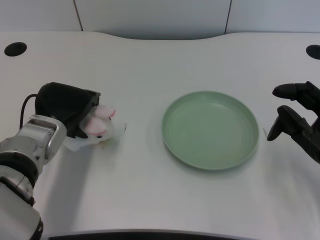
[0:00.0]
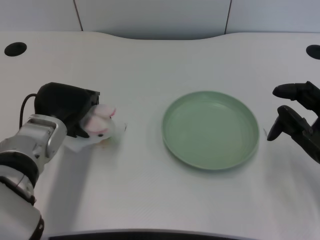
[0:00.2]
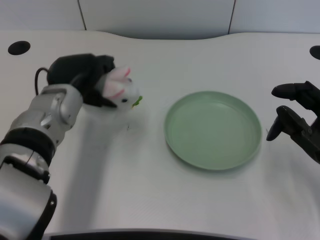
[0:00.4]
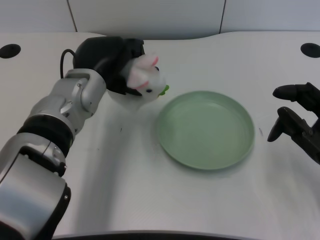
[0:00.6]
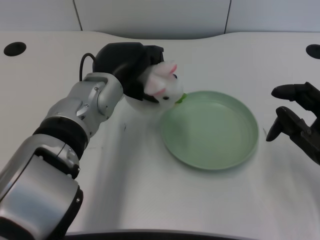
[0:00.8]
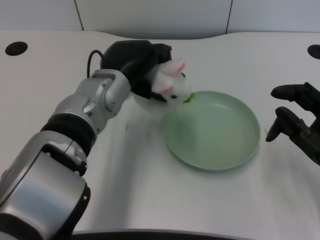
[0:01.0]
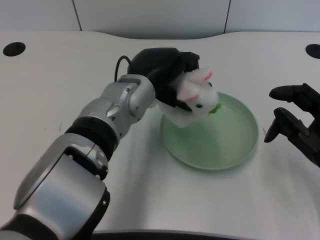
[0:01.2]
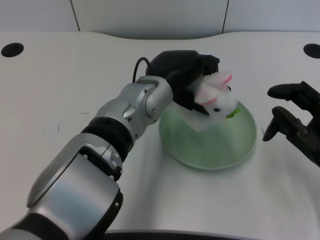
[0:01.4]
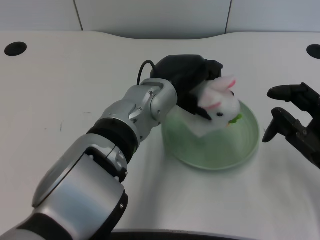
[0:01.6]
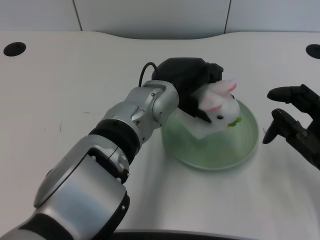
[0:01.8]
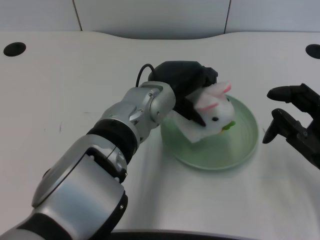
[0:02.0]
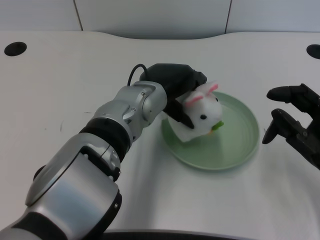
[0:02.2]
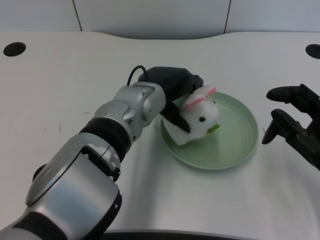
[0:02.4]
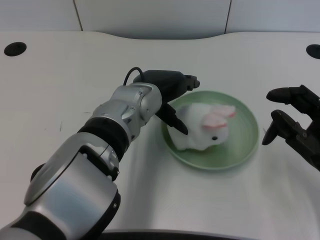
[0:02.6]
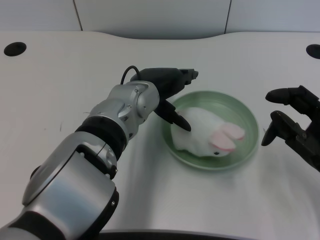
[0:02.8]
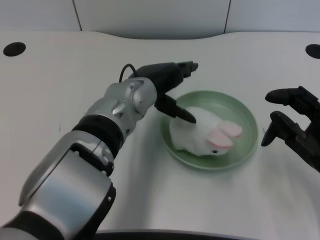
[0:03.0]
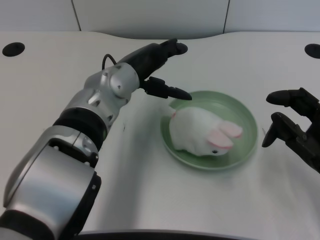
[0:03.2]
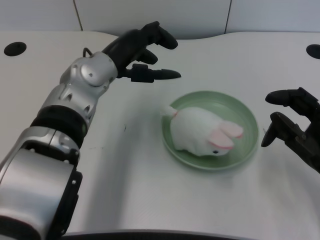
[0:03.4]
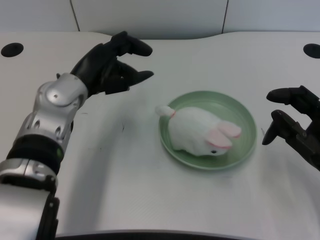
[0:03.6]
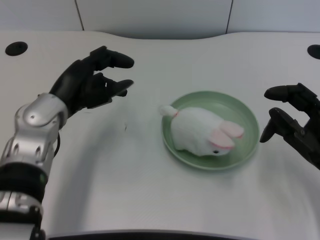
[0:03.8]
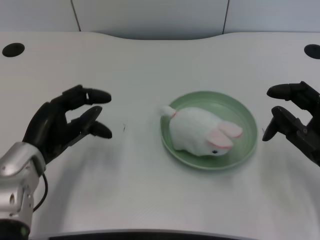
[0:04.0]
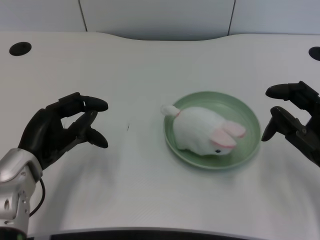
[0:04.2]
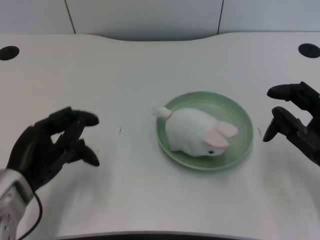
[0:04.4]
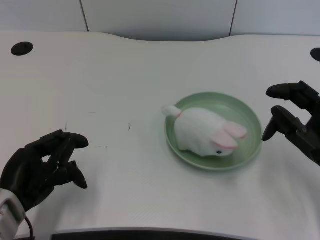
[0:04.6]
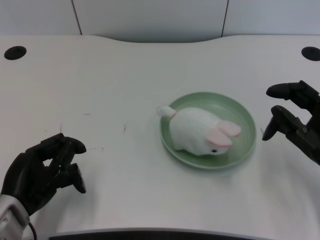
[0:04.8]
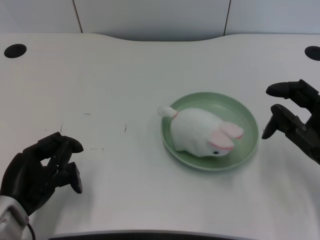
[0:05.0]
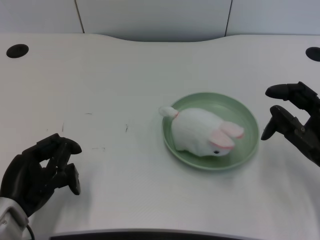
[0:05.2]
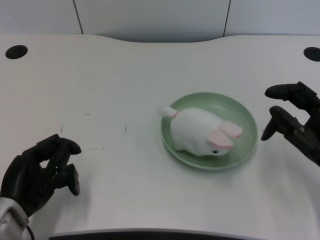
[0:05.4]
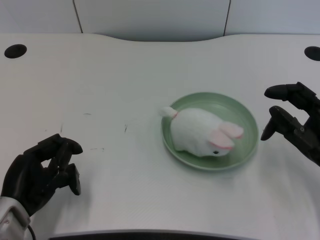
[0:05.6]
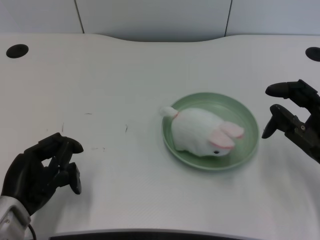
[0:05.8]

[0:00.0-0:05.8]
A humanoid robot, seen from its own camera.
Task of the whole recording: pick up the rabbit doll from the table and place it on the plate.
Step, 0:00.4 to 0:02.6: Place the rabbit doll into the plate with the left gripper.
0:00.0 to 0:01.4: The left hand shifts about 15 cm to the right and upward.
0:02.8 to 0:04.4: The left hand heads to the left and backward, covering roughly 20 cm.
0:04.4 to 0:05.8: The hands make only small movements.
